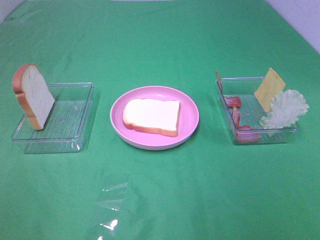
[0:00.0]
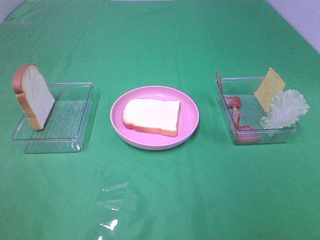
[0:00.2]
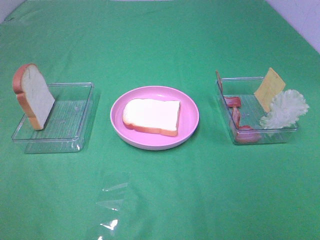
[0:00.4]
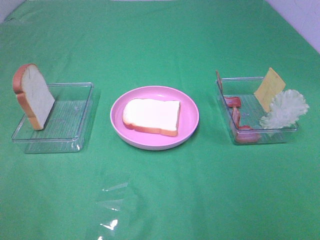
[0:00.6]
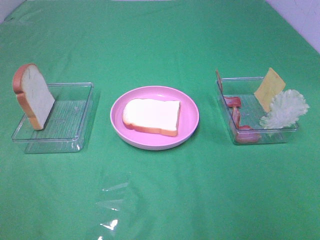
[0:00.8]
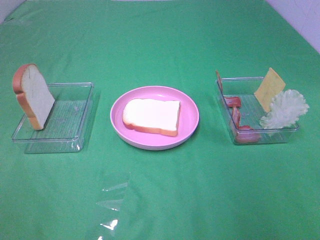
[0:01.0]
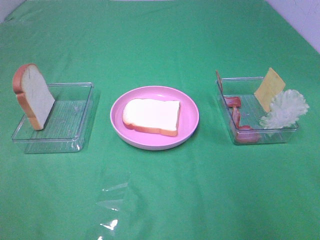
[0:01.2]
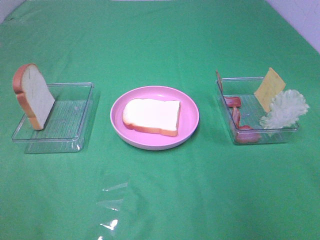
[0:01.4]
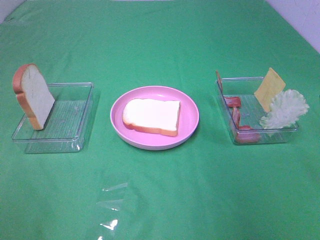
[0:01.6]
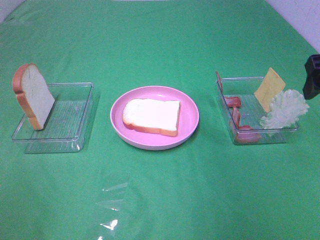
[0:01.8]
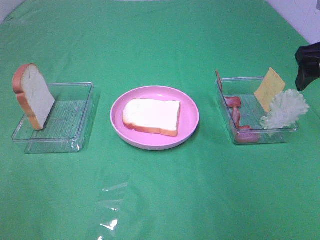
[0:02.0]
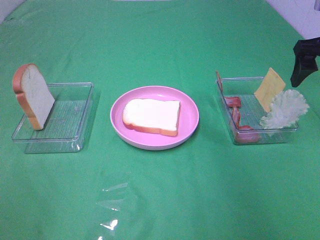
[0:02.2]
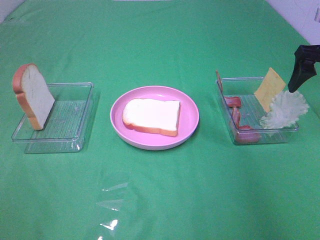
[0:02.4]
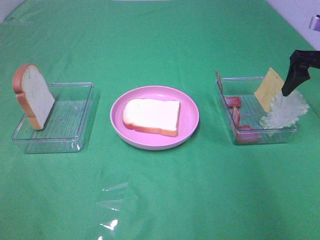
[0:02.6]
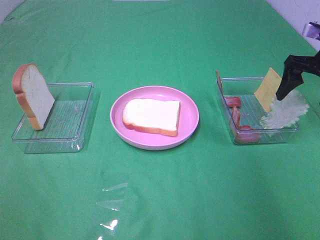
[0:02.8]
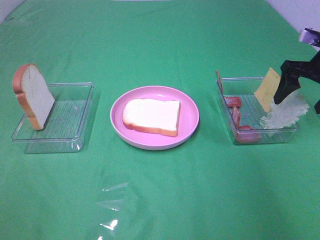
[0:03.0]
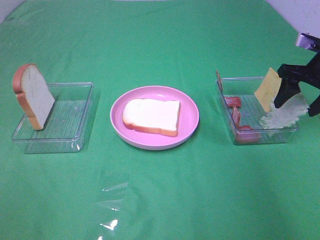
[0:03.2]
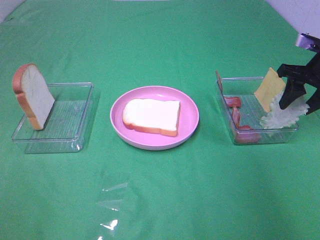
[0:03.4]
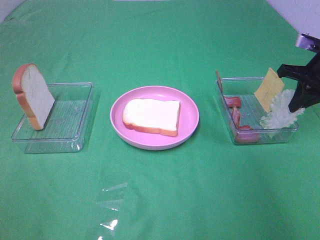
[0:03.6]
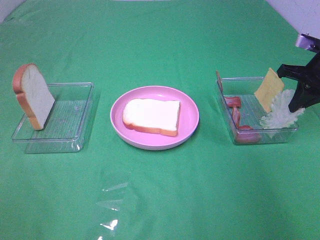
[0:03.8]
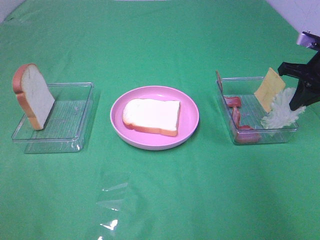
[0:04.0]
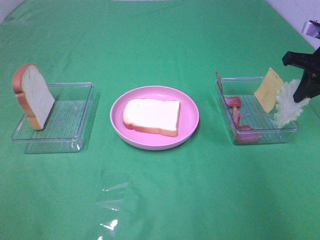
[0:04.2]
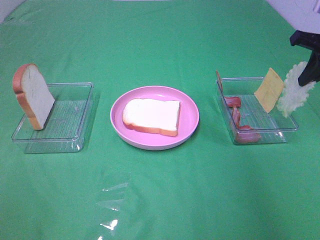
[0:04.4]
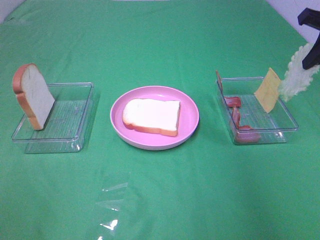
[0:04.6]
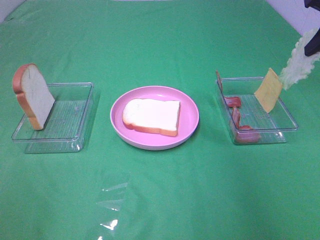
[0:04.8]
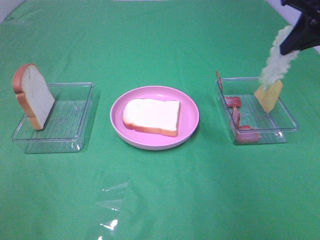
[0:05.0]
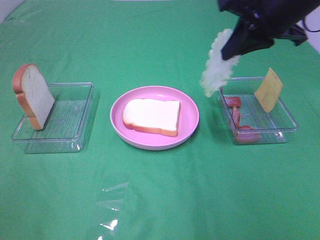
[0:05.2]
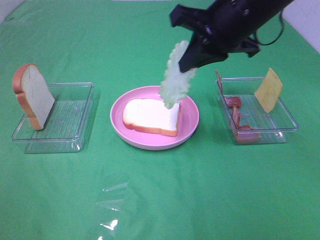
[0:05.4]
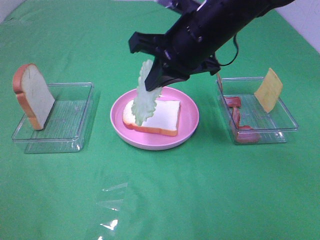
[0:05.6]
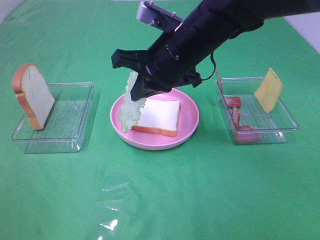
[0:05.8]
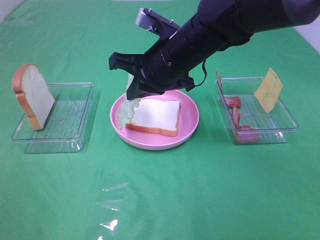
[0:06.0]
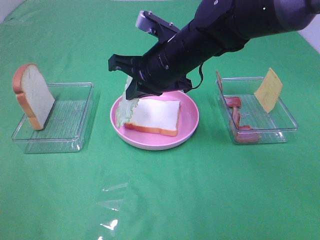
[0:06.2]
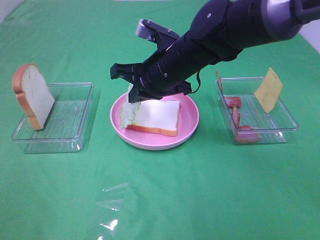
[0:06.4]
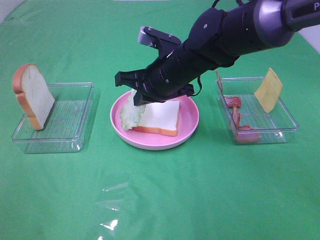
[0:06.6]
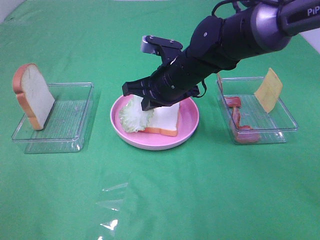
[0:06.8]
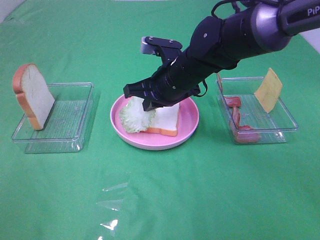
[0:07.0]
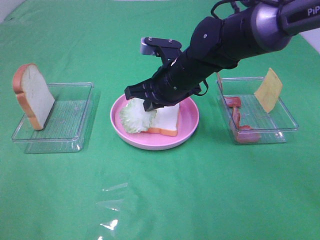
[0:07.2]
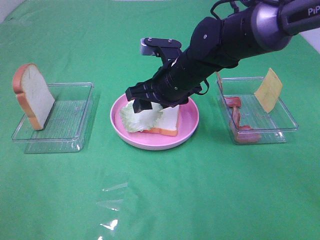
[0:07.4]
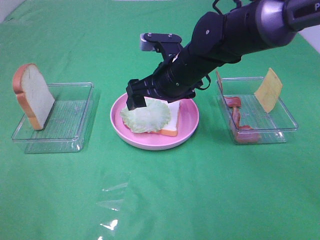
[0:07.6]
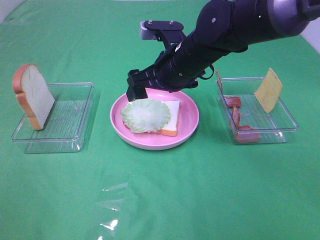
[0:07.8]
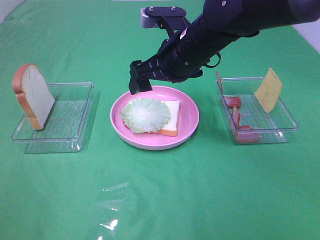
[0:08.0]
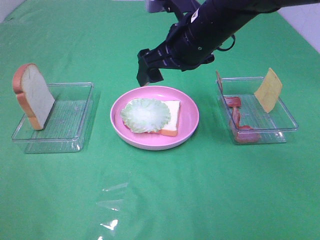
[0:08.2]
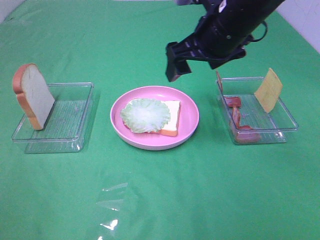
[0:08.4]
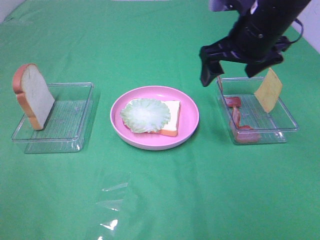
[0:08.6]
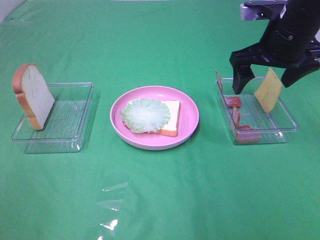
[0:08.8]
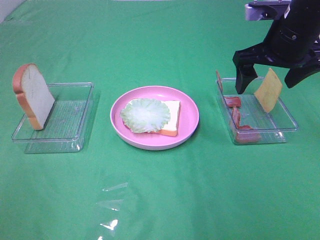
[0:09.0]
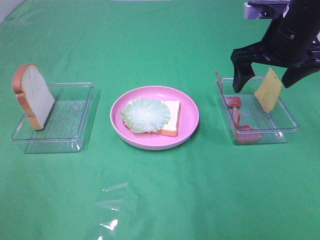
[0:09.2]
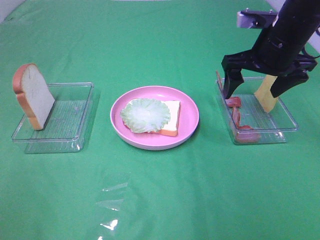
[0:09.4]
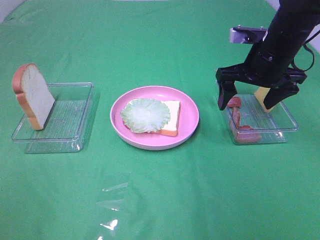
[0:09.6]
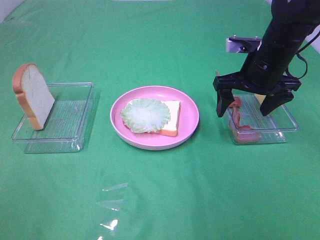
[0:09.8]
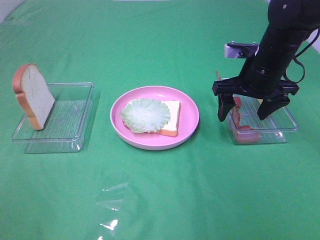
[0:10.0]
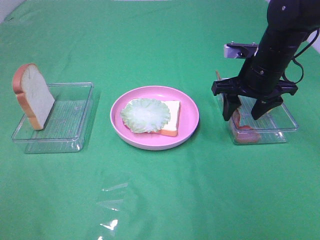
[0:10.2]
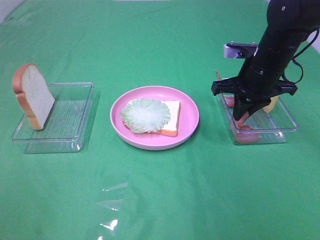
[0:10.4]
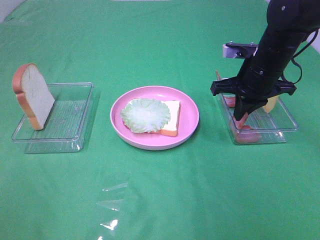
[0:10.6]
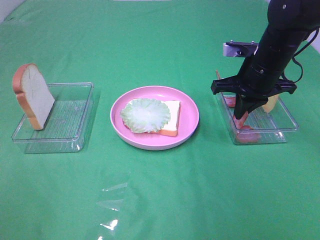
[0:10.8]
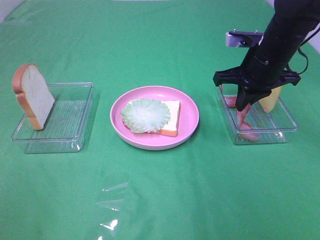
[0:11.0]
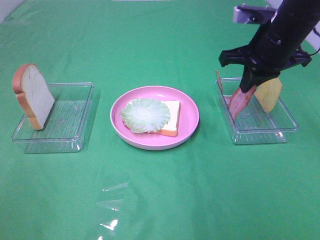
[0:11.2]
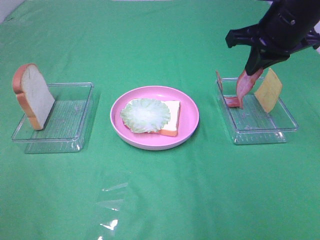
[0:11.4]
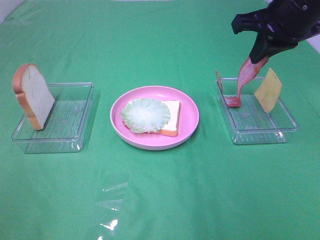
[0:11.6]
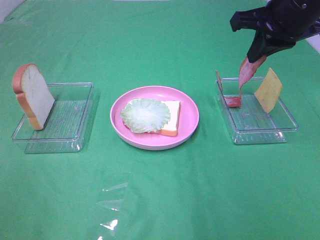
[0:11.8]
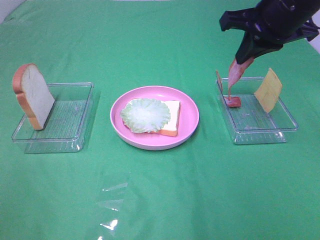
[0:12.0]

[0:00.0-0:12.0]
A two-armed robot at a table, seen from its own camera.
Task of the whole recording: Make sandwiches.
Step, 0.0 to 3.6 s: Right hand:grab the lettuce slice.
Step, 3.8 to 7.6 s: Right hand:place the lettuce slice on the bread slice.
Step, 7.8 to 10.8 s: Right hand:grab the bacon.
1.6 to 3.0 s: The right gripper shifts roughly 20 cm forward and downward.
3.0 to 4.4 s: The right gripper goes some 5 cm upward, and closes.
4.4 to 6.0 s: The right gripper travels to the left by roughly 30 cm.
6.0 to 7.6 s: The right gripper ends up some 5 cm from where it was, and opens.
7.6 to 9.0 s: The right gripper is displaced to the right and upward by some 20 cm.
9.0 to 10.4 s: The right gripper moves downward, approximately 10 cm, and closes.
10.4 to 12.0 s: The right gripper heads upward, covering about 10 cm.

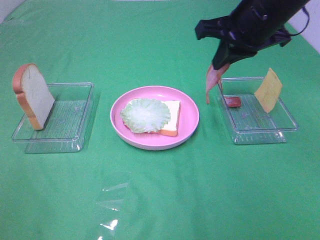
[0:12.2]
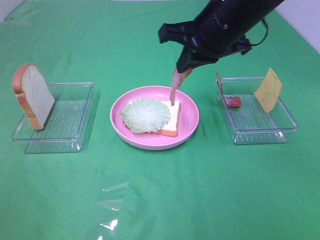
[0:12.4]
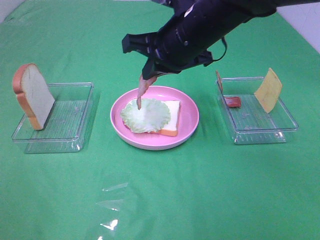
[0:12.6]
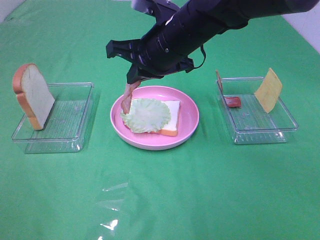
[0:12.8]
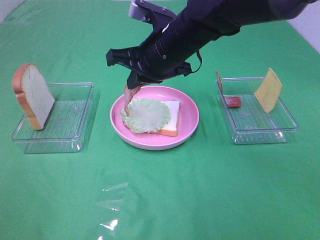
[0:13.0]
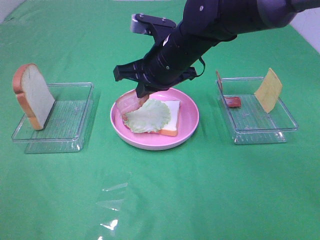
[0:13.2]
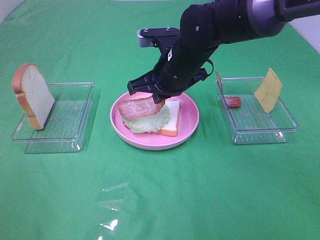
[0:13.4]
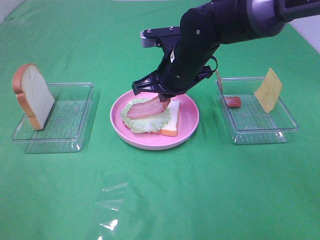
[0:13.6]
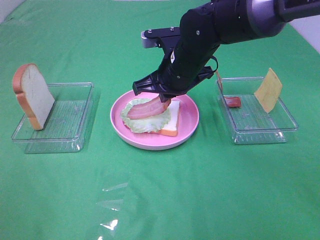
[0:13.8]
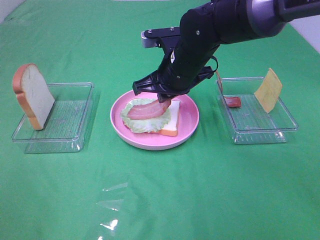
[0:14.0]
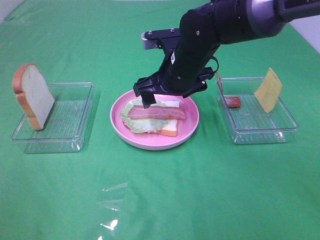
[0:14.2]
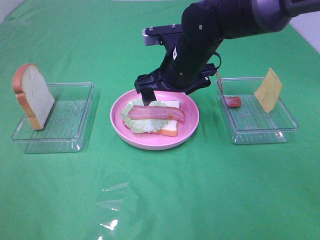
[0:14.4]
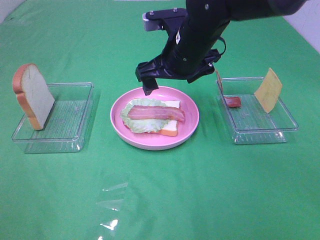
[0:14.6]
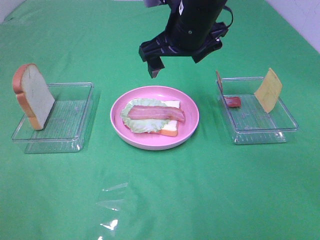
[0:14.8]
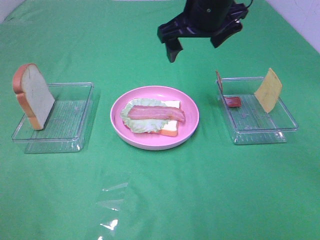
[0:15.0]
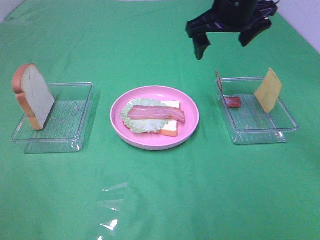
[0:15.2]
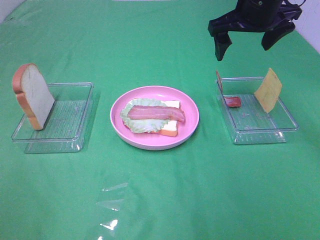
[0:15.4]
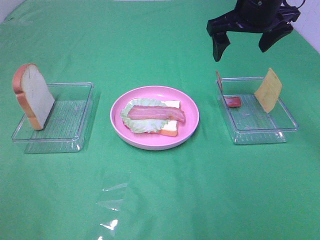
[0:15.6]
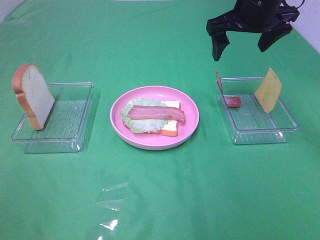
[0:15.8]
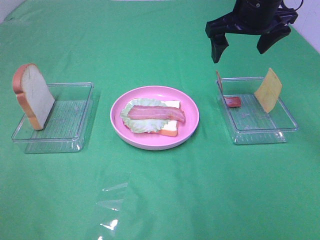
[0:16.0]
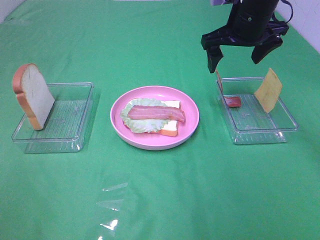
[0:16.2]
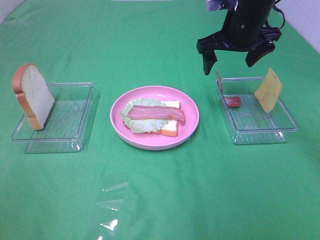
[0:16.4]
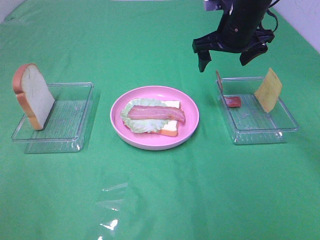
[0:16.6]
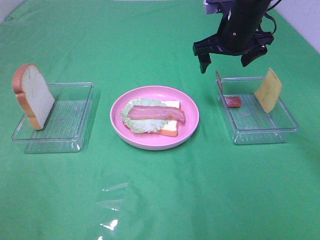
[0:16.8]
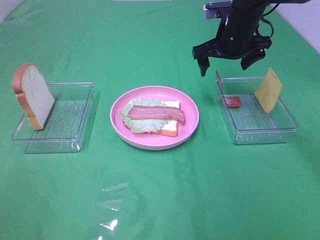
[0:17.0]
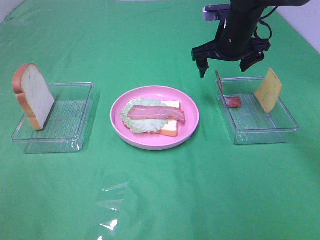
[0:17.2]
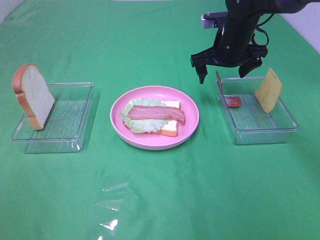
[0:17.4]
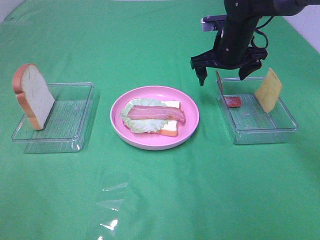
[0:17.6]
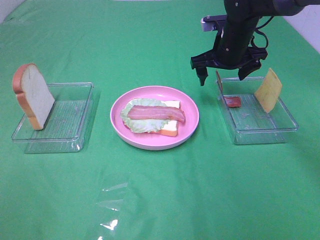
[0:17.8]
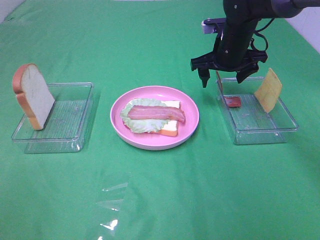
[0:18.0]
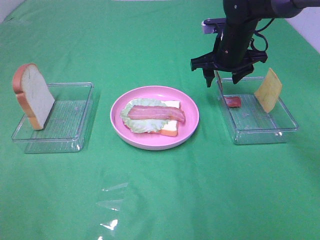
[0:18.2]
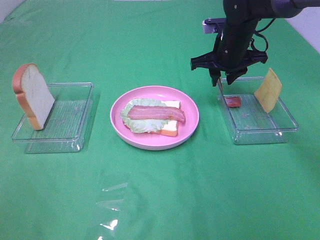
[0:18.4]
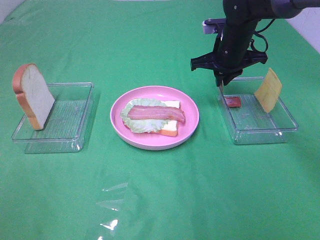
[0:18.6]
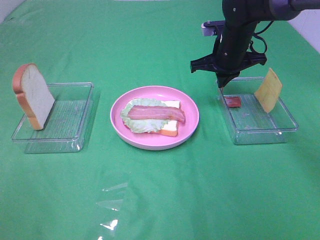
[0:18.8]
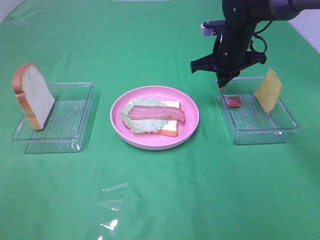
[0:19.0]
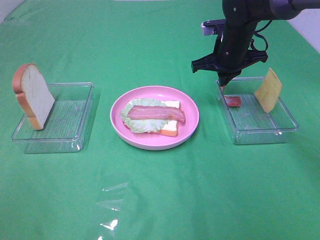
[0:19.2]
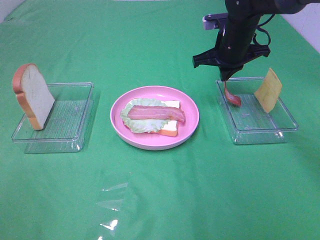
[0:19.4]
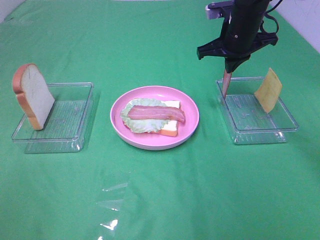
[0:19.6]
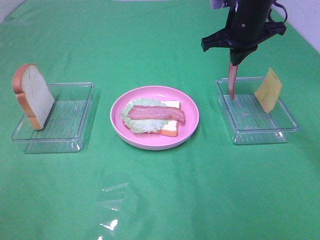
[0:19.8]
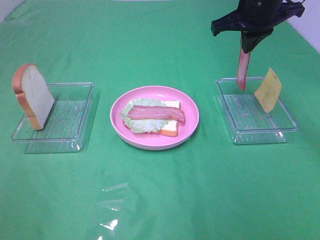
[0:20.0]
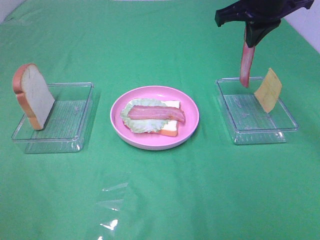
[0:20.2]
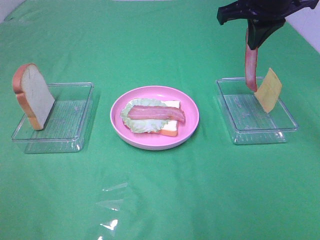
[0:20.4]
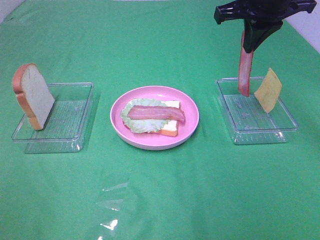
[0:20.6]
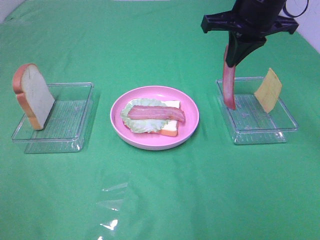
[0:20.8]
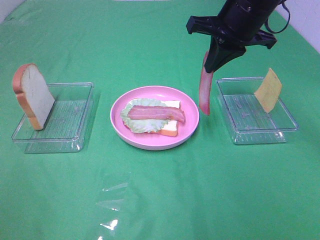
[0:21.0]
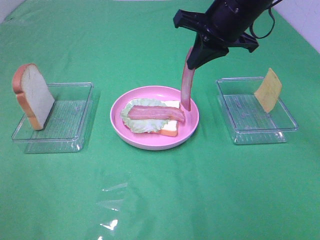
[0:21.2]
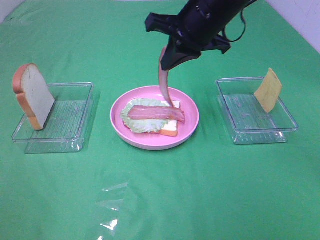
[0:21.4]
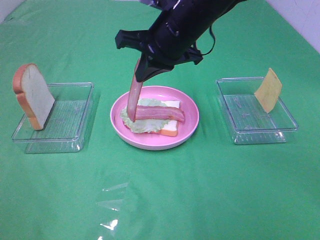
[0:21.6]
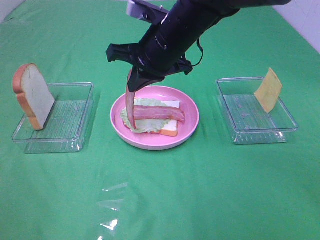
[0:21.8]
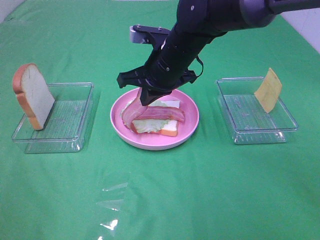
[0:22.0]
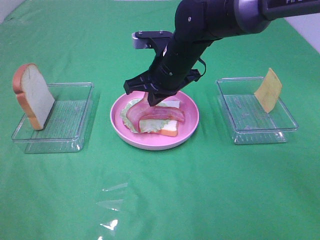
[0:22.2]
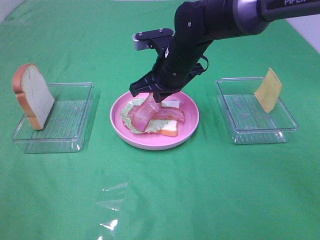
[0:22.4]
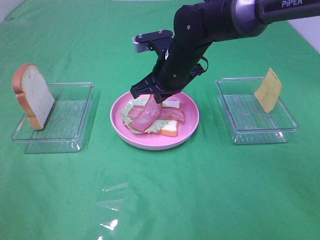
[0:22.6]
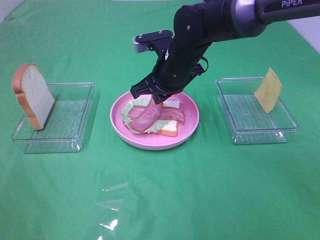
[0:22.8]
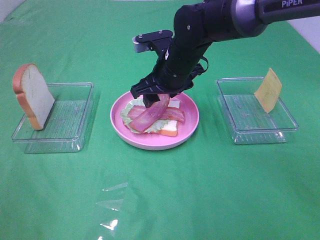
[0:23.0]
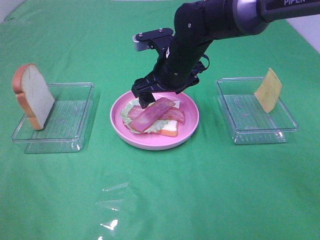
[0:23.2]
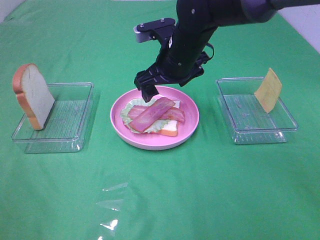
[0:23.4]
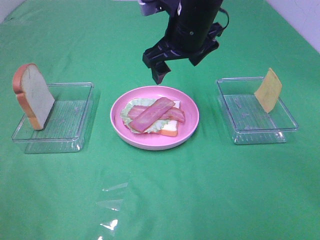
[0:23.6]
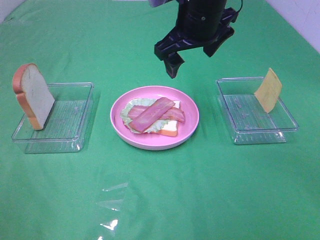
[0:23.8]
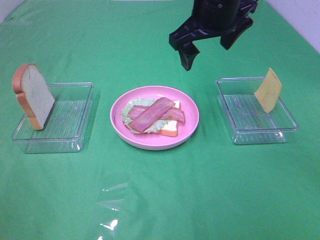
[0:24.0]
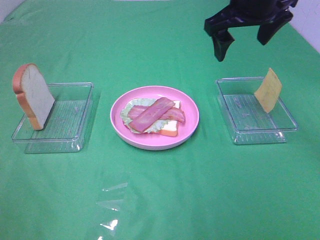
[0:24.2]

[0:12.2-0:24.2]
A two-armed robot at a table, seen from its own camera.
Task of the whole recording: Make sandwiches.
Step, 12.2 to 14.2 s: Right hand:place bacon on lettuce slice.
Step, 14.4 to 18.8 s: Right hand:grab the bacon.
Step, 19.0 to 23.2 s: Right hand:place bacon on bacon.
12.2 to 13.8 s: The right gripper heads downward and to the left, covering about 15 cm.
13.8 to 15.2 s: The right gripper heads upward and to the right, covering approximately 15 cm, and opens up.
15.2 to 16.6 s: The right gripper is displaced downward by about 5 cm.
16.6 to 18.2 s: The right gripper goes roughly 5 cm downward, and closes.
18.2 to 19.8 s: The right gripper goes about 5 cm upward, and closes.
19.8 to 21.2 s: The right gripper goes about 5 cm backward.
21.2 to 22.6 s: The right gripper goes roughly 15 cm downward and to the left.
22.6 to 24.2 s: The right gripper goes about 20 cm upward and to the right, and opens its fingers.
